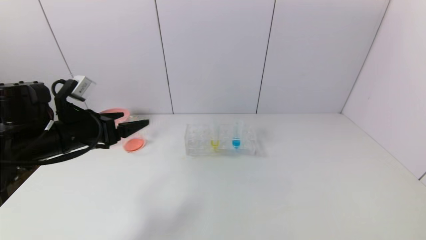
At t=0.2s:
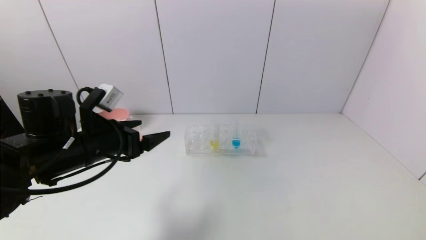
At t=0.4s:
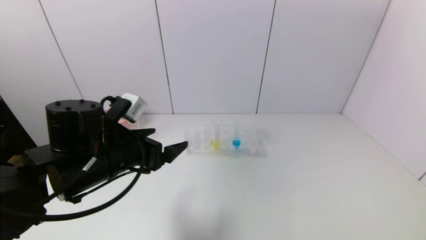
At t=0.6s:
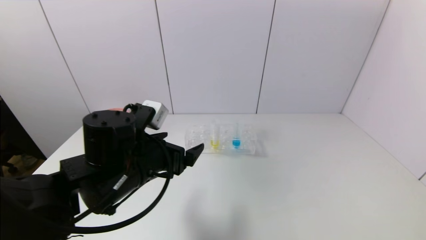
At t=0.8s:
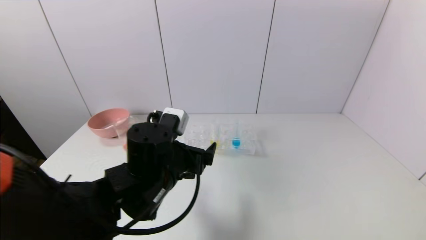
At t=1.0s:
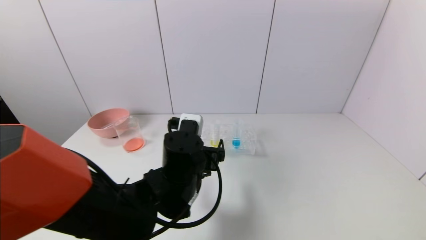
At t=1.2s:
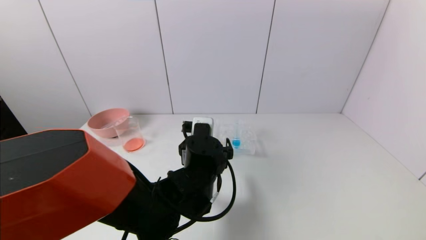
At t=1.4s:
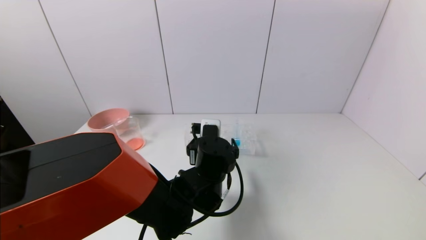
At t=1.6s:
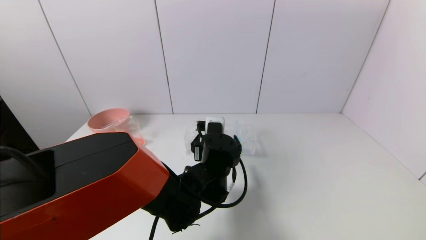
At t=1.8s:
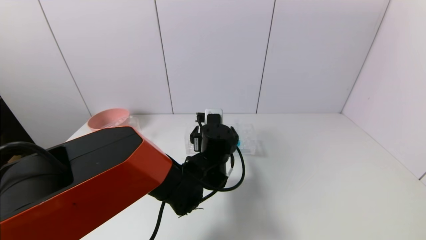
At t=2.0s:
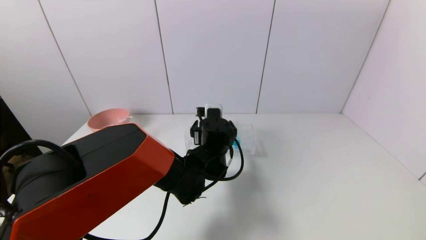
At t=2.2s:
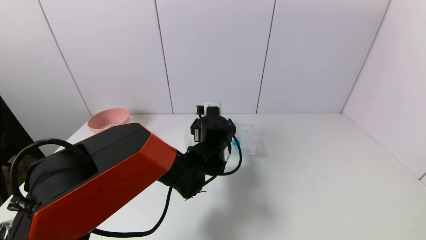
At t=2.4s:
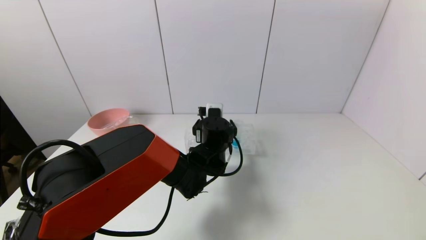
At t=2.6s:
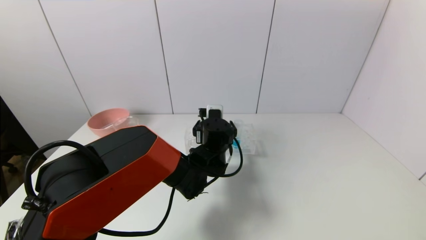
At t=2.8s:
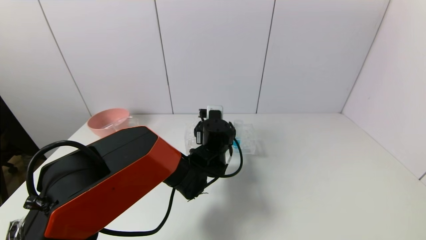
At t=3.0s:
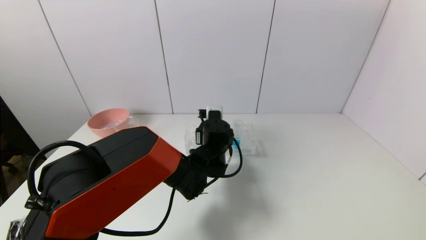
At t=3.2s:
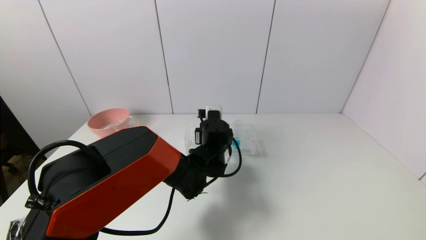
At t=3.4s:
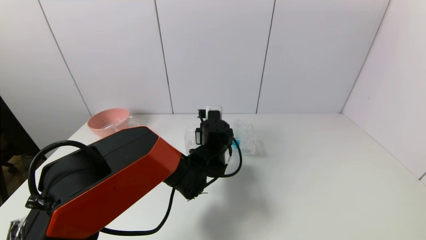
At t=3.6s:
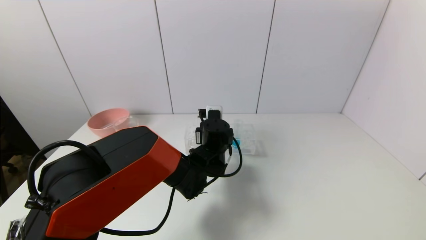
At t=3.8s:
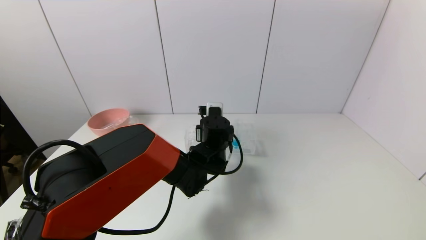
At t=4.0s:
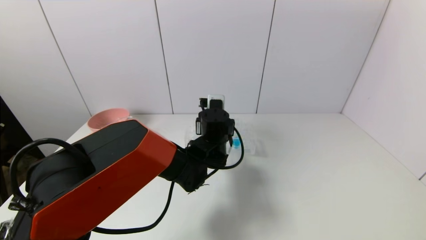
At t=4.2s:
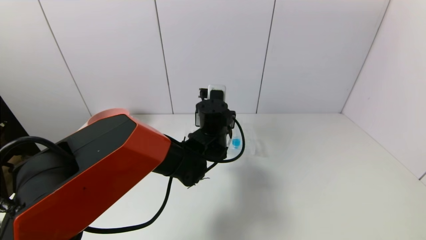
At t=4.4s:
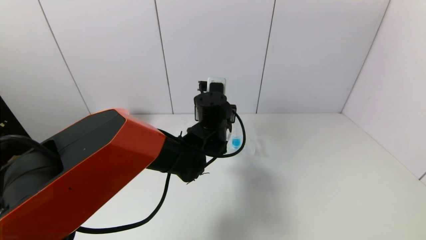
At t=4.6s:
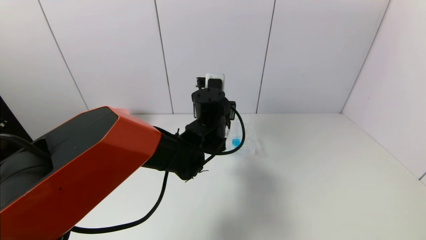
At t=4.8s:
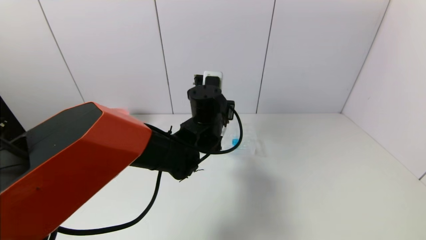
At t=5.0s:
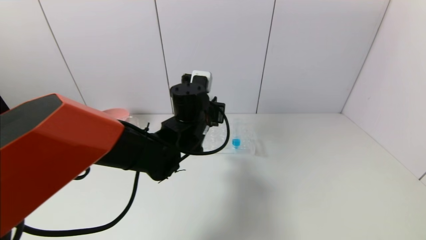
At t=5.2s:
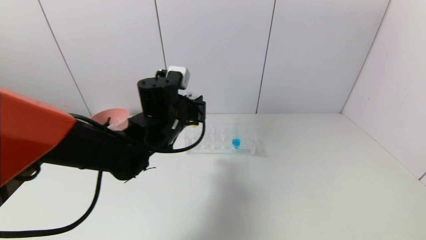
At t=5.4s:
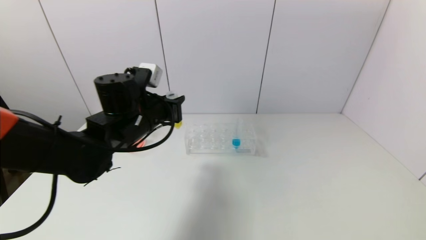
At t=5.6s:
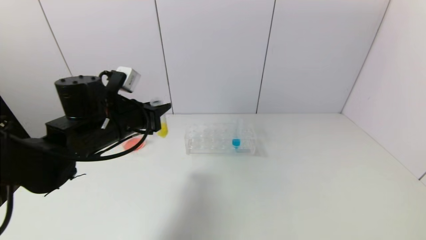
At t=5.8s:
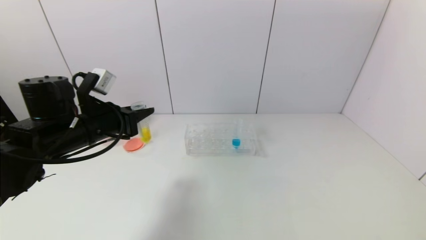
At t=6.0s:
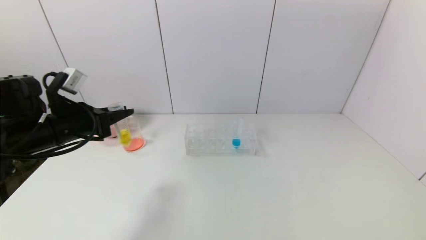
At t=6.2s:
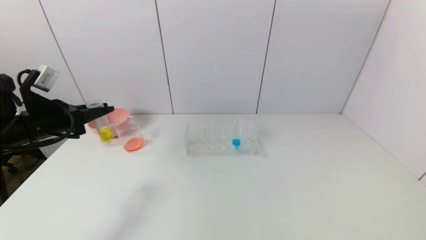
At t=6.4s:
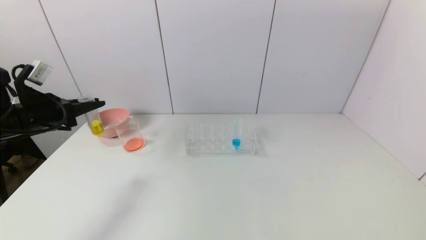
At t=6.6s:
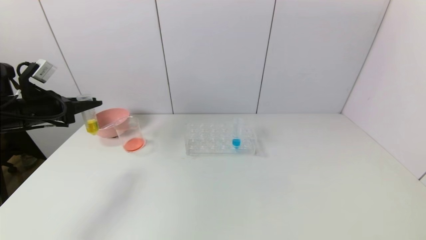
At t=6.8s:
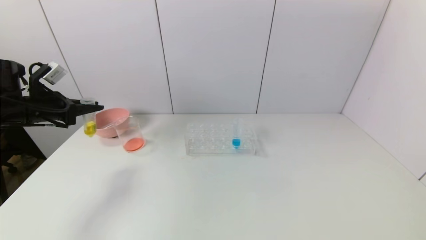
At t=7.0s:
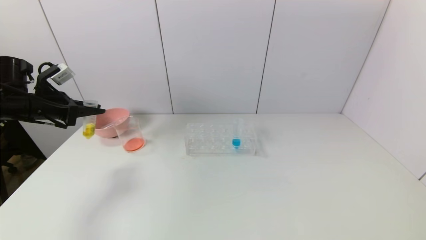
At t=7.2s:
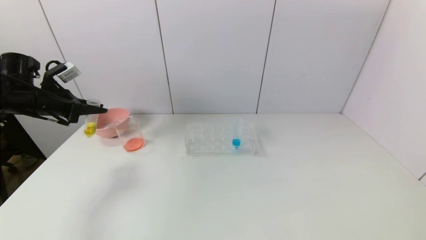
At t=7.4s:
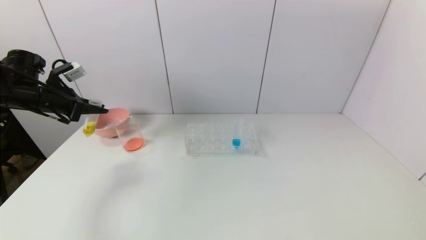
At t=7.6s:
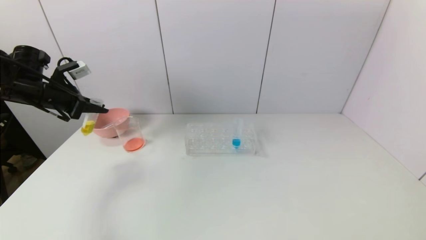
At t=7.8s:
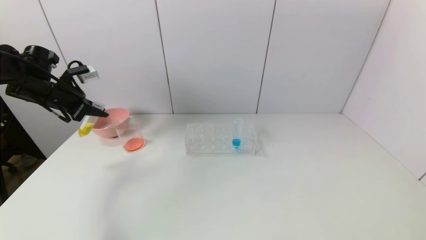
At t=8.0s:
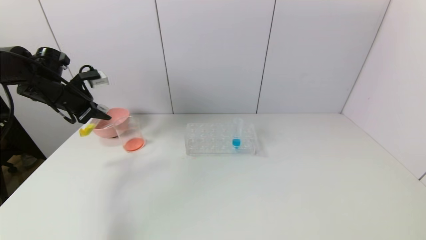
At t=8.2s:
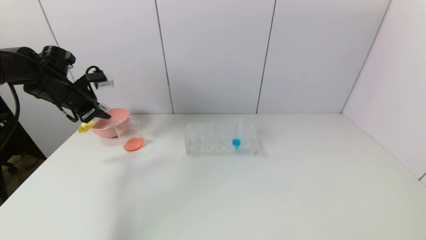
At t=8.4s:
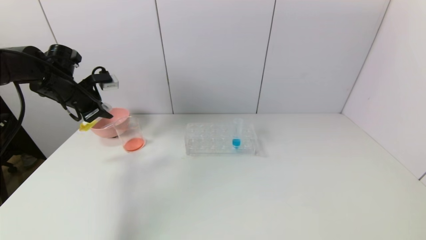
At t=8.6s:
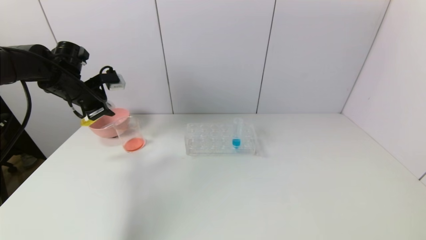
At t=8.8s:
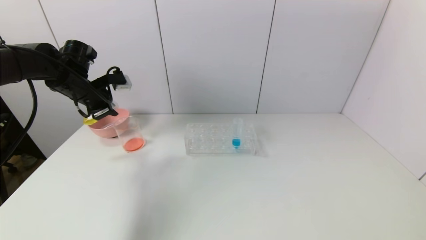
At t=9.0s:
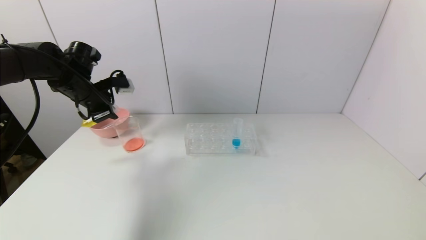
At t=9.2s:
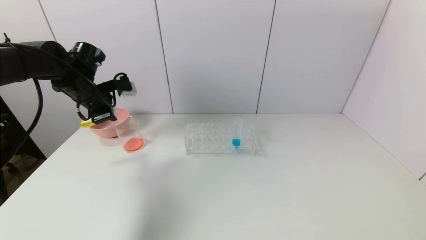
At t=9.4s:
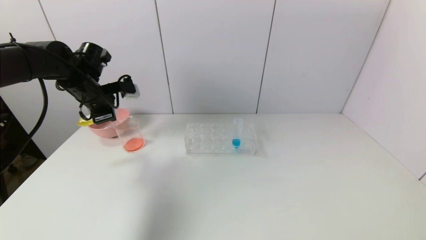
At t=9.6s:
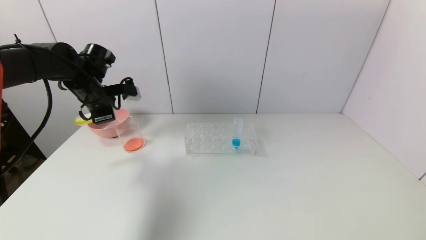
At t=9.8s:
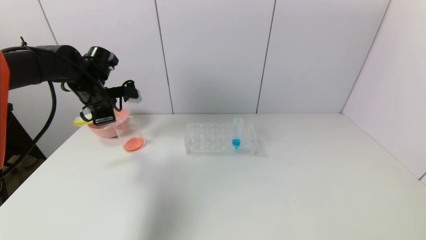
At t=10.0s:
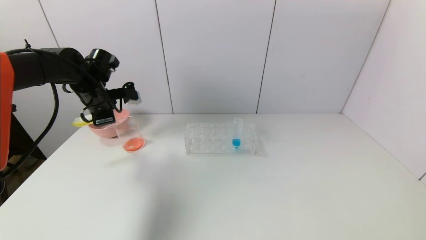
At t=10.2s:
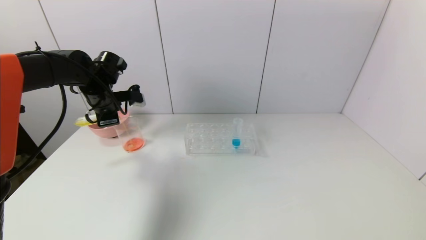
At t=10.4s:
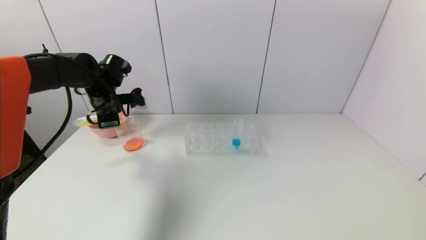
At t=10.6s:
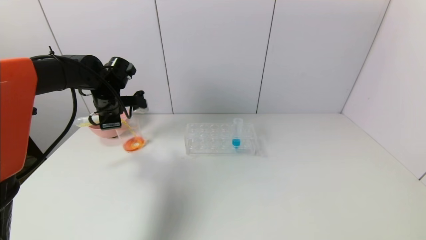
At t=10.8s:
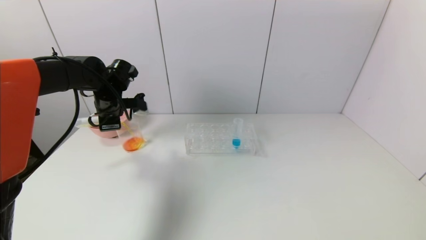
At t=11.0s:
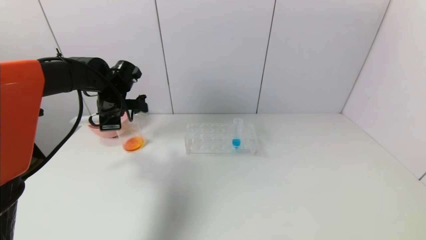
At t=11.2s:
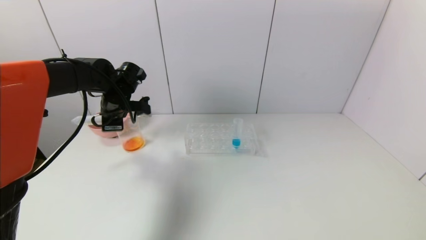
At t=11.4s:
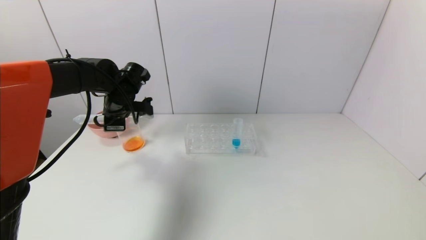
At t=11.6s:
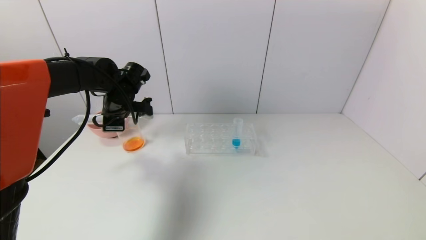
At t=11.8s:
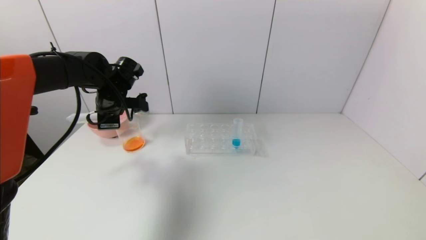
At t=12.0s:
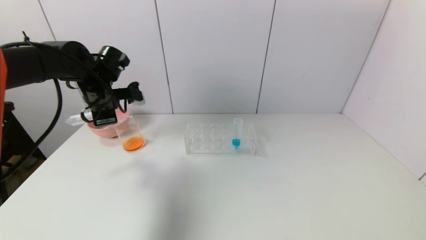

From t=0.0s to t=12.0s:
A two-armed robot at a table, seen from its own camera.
Task of the whole recording: pick up the test tube with yellow pigment and the test tube with red pigment by grippers and pour them into the beaker.
Step, from t=0.0s to t=3.4s: Grasp the yellow reagent with the left gripper.
Step, from t=3.6s to t=11.6s: Pour the yellow reagent into the graduated cylinder with the left gripper.
From t=0.0s to t=1.6s: The left gripper is displaced to the right by about 25 cm.
From t=1.6s to t=3.0s: The left gripper moves forward, roughly 5 cm, and closes up.
From t=3.0s to t=4.4s: The left gripper shifts roughly 5 cm upward, and closes its fingers.
From t=4.4s to t=6.0s: The left gripper shifts some 30 cm to the left.
From t=6.0s to t=7.6s: The left gripper travels forward and to the left by some 15 cm.
From t=7.6s to t=9.0s: The left gripper travels to the right by some 10 cm.
From t=9.0s to t=10.4s: The left gripper ends up approximately 5 cm from where it was.
From t=10.4s to t=12.0s: The grippers move only a little.

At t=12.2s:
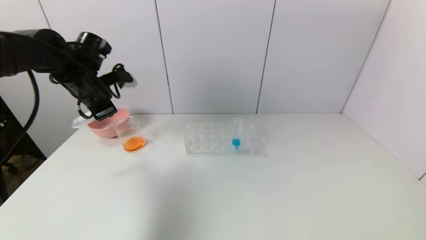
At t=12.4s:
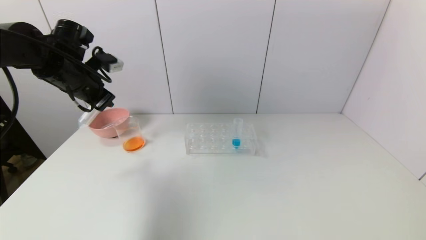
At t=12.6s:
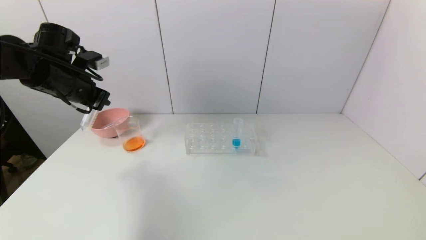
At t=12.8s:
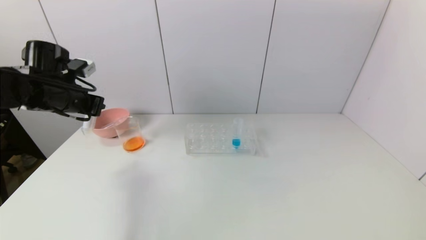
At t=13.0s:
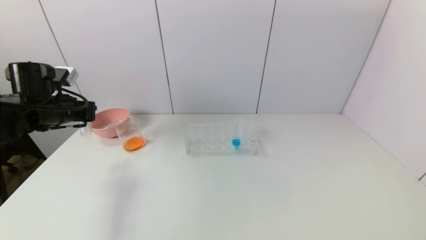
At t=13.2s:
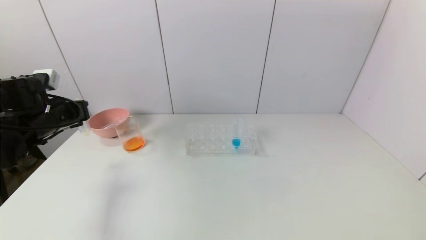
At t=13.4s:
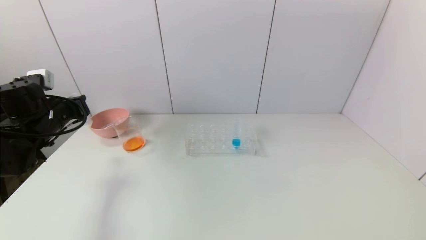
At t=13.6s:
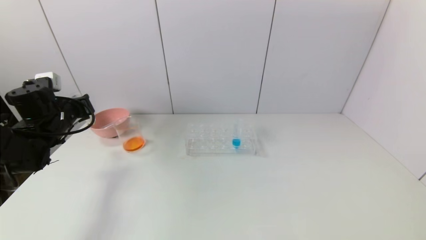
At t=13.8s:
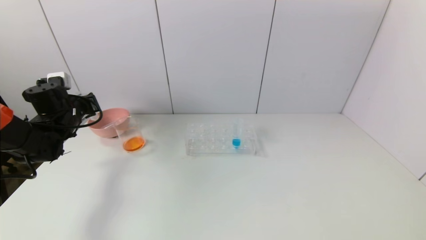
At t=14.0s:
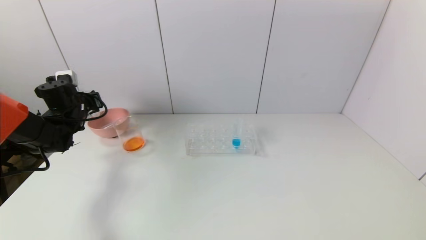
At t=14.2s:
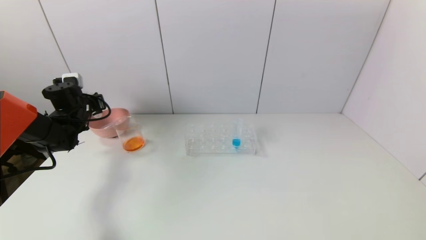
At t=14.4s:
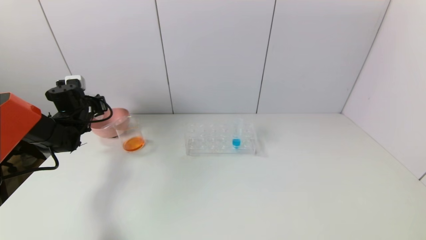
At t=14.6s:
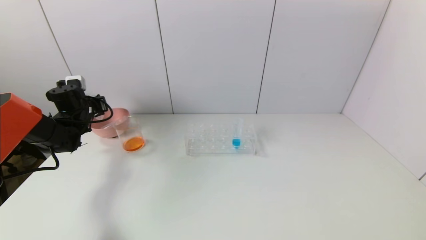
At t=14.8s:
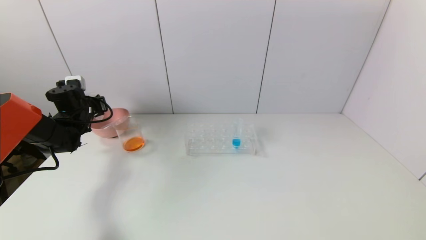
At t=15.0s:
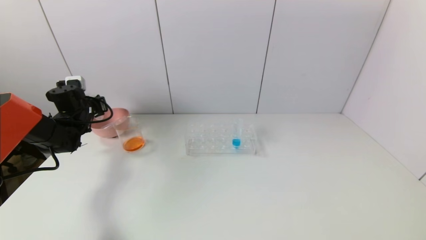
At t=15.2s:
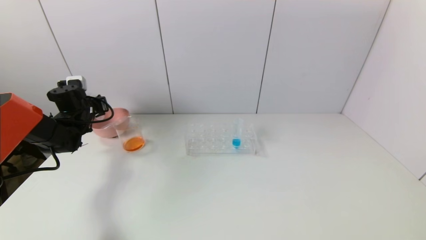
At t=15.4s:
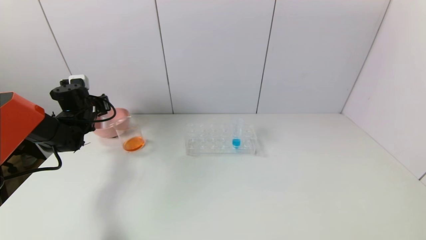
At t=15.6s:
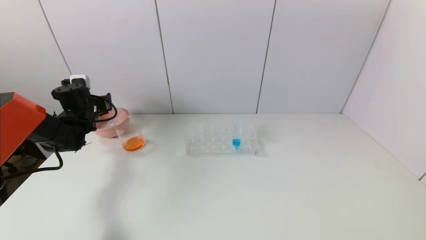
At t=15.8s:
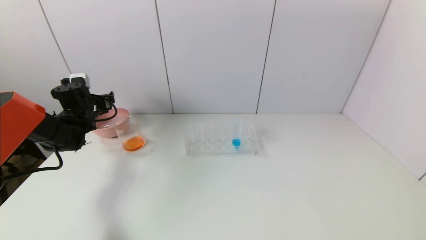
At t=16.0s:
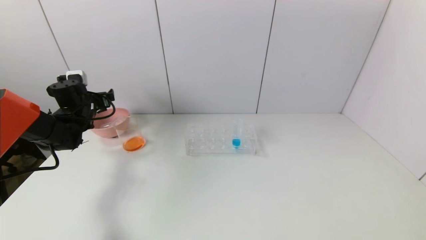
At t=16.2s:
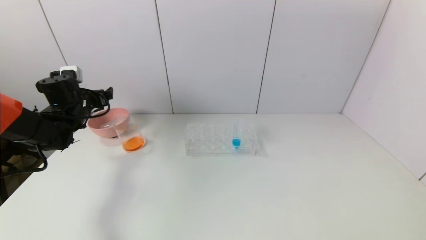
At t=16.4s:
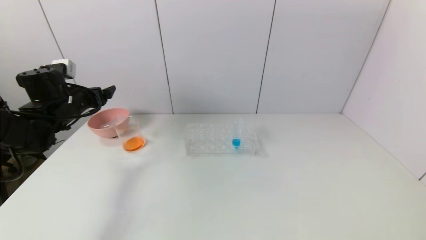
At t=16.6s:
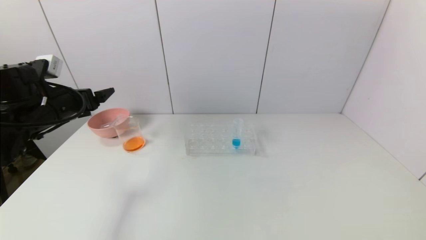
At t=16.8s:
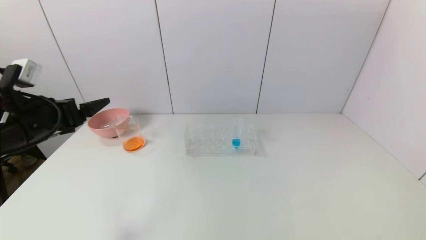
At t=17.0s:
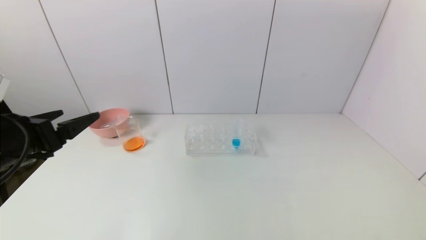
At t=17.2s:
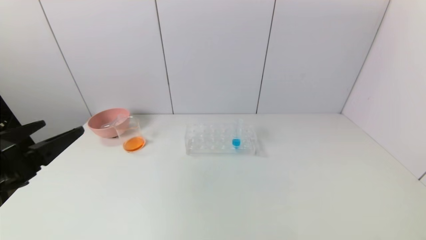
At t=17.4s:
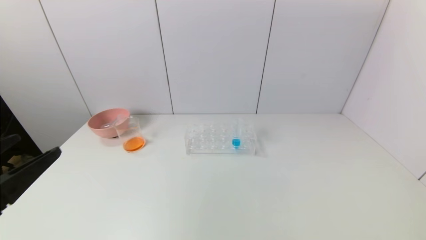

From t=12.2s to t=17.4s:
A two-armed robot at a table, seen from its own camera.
Task of the whole recording: pick up the test tube with yellow pigment and the test tube with red pigment by grippers and pour them into the beaker.
Step, from t=12.2s to t=15.6s: Place the test tube into the pink bowl with the left gripper.
From t=12.2s to t=14.0s: The left gripper heads downward, to the left and forward, covering roughly 15 cm.
From t=14.0s to t=15.6s: The left gripper opens.
From t=15.6s to t=17.4s: The left gripper moves backward, approximately 35 cm.
